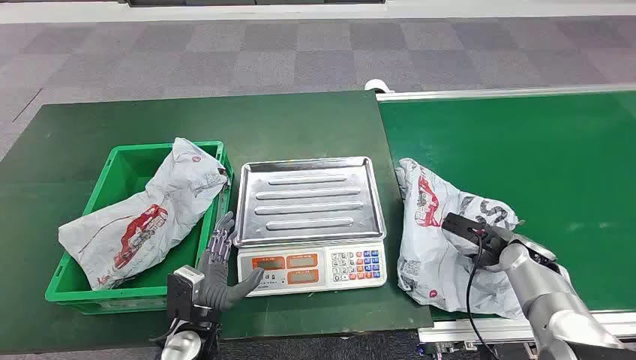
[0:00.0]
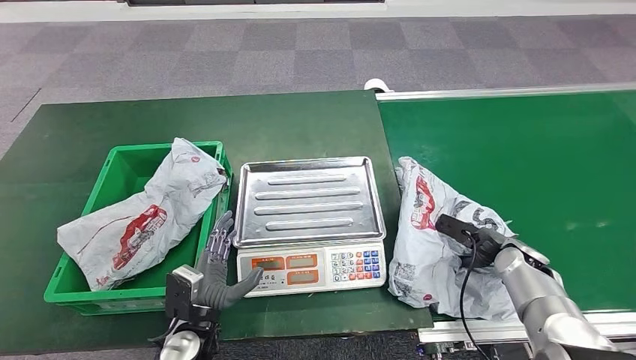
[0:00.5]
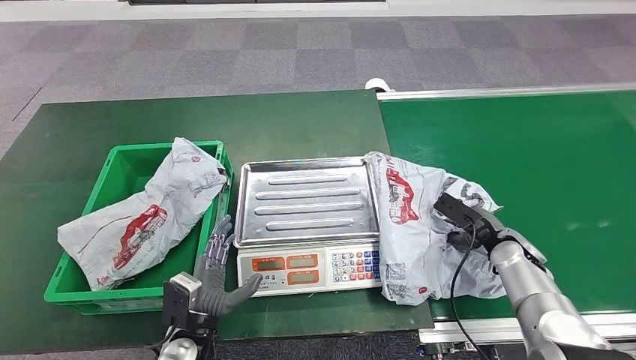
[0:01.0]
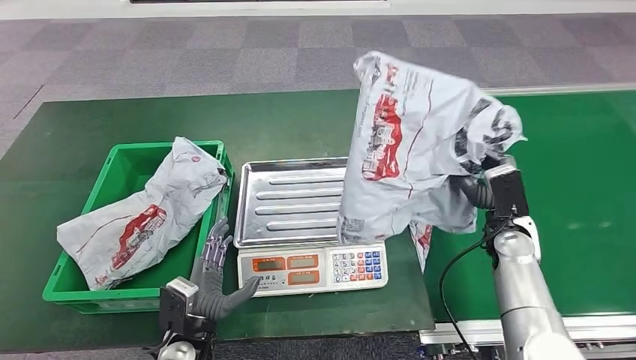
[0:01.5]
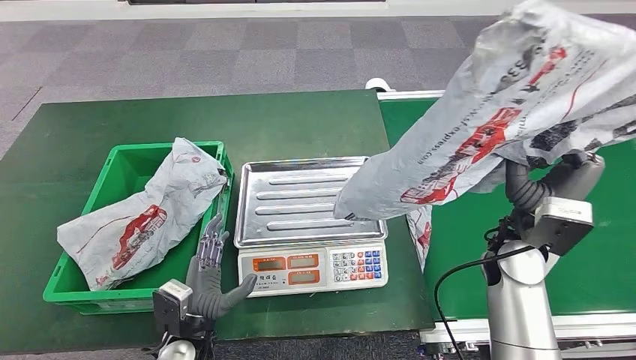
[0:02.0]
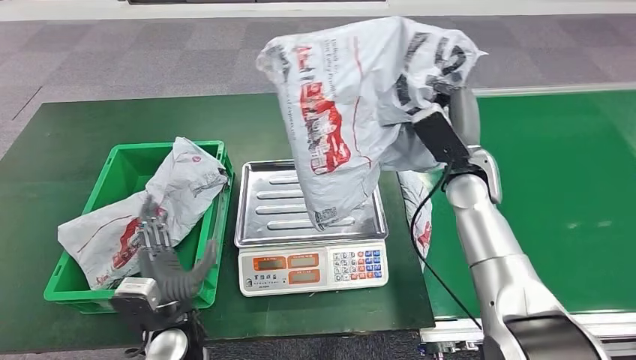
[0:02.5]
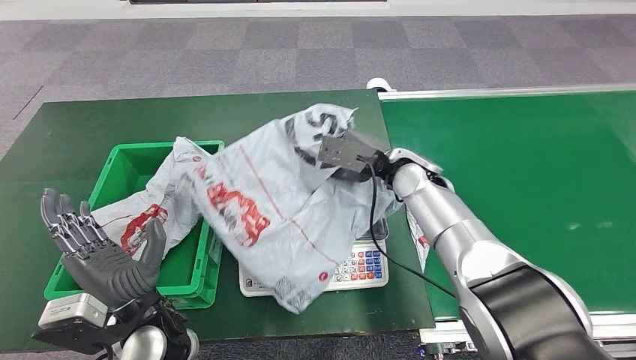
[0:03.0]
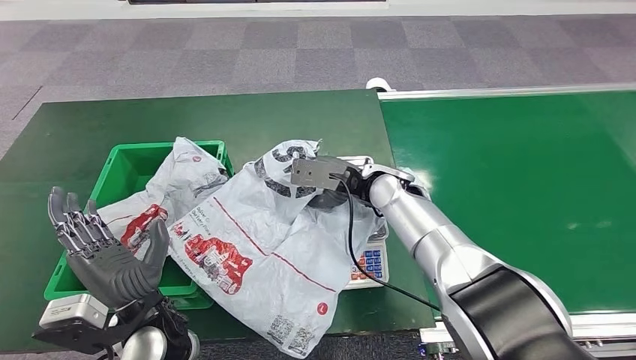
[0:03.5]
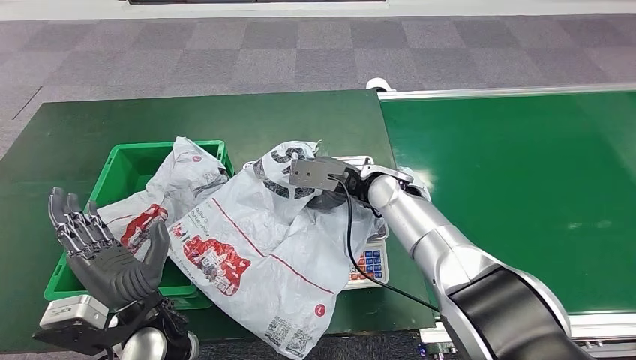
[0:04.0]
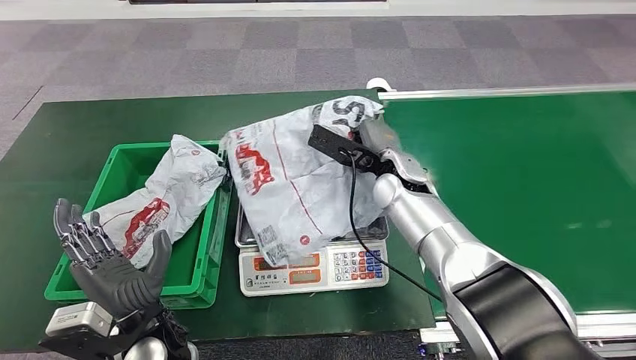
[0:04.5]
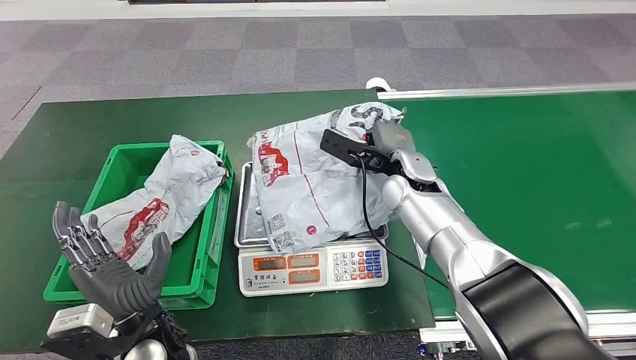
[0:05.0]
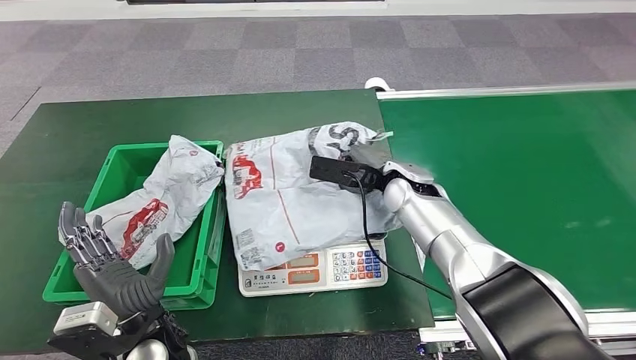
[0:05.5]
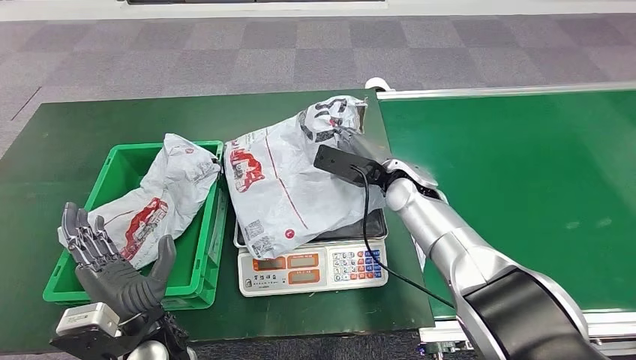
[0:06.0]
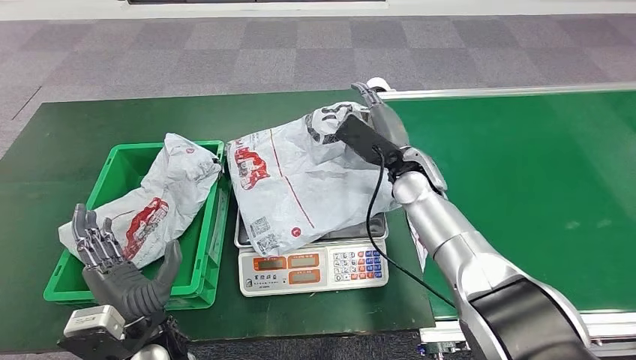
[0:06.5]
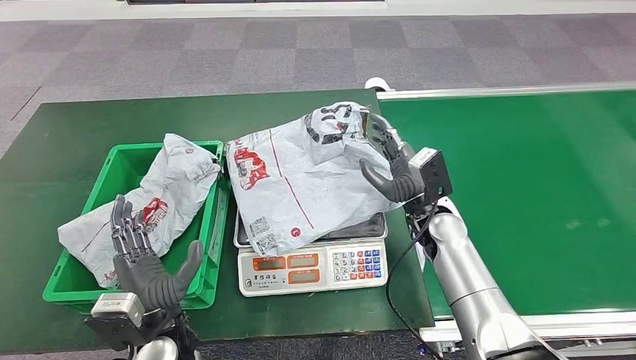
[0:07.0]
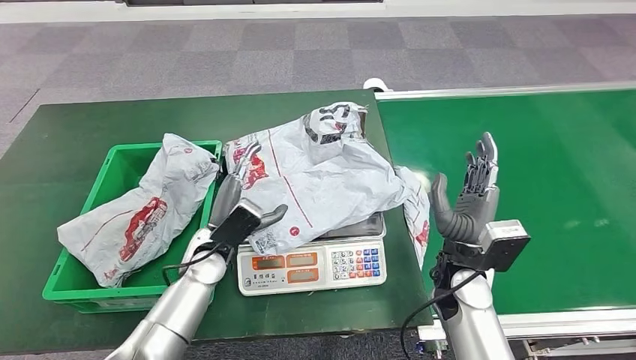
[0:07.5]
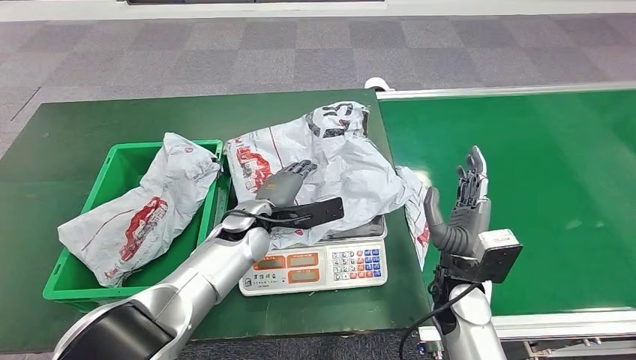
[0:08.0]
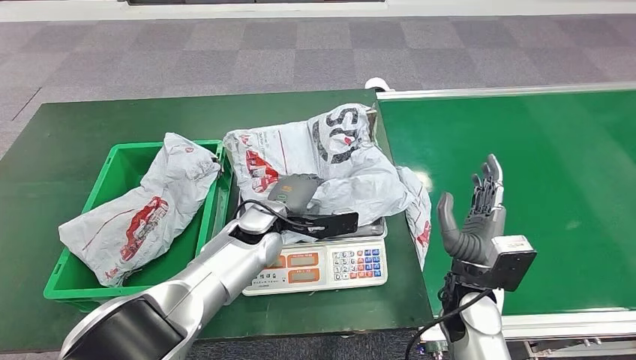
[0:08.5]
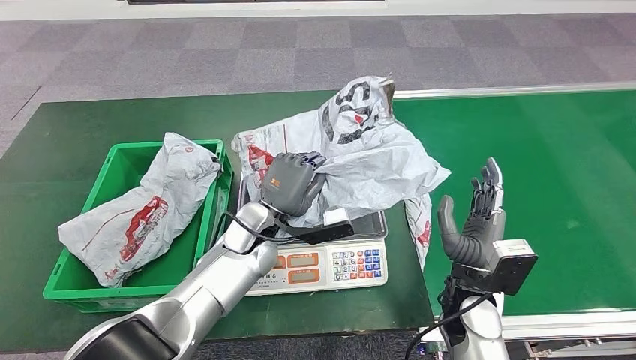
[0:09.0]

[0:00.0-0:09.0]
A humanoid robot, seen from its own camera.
Step, 0:00.0 to 0:02.0: Pick up the package from the conveyor belt.
Step, 0:02.5 to 0:07.0: Place the package onto the inbound machine.

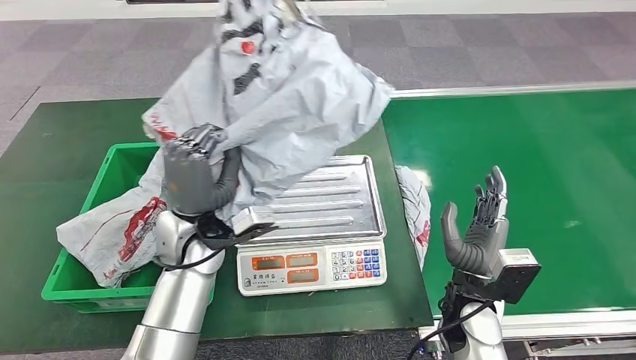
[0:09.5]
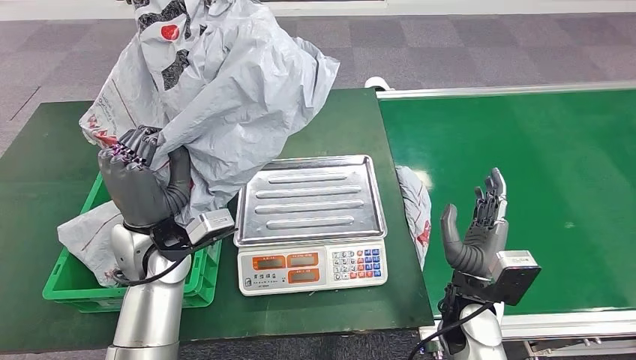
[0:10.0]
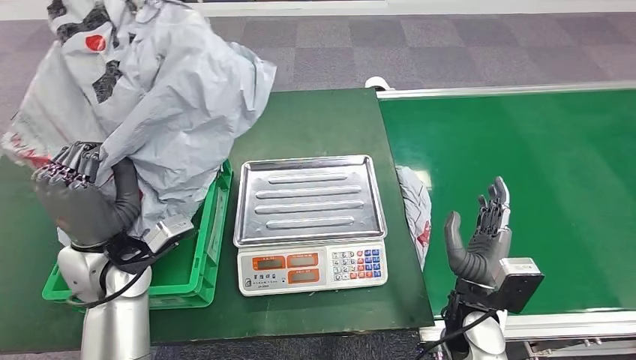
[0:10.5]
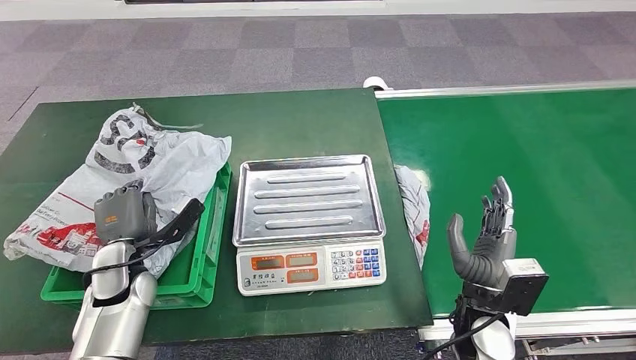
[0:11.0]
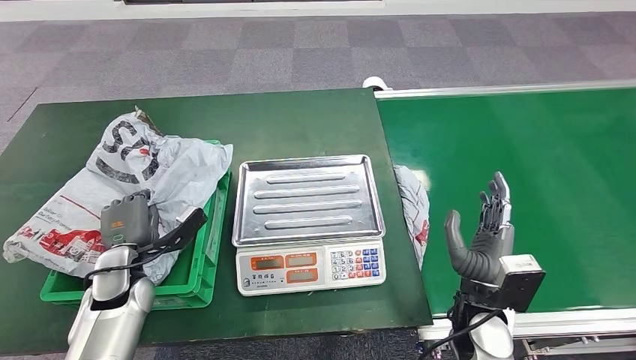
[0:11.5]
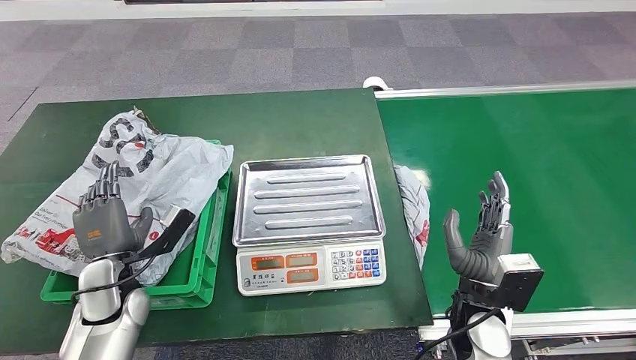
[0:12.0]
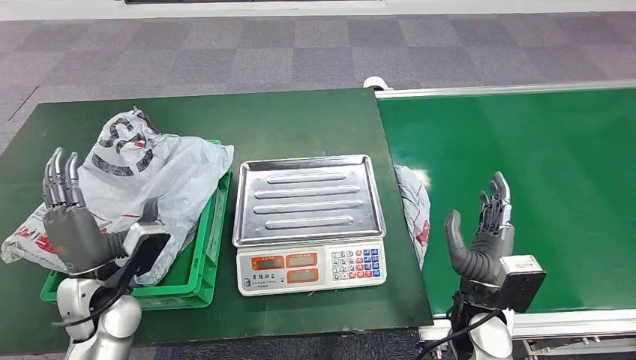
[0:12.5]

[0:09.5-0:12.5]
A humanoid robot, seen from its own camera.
Step, 0:10.5 to 0:12.5: Place the package into the parcel locker.
0:11.0 to 0:12.5: The left hand moves backward, some 5 cm.
